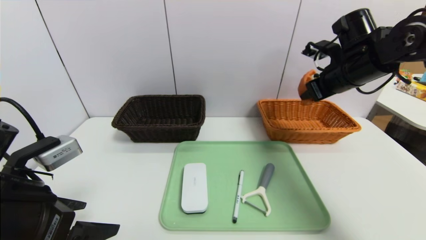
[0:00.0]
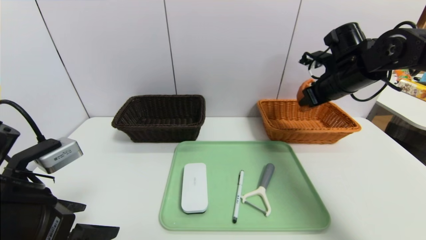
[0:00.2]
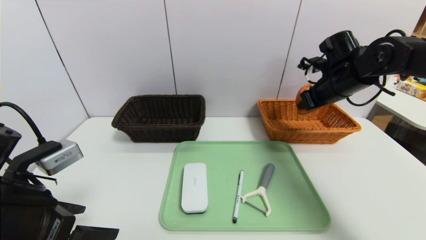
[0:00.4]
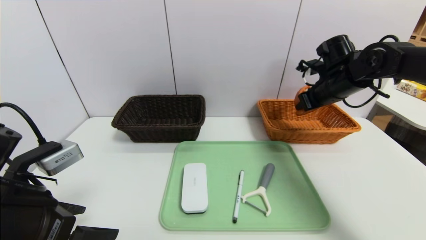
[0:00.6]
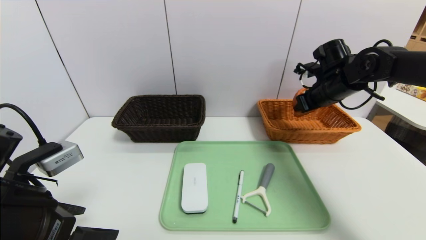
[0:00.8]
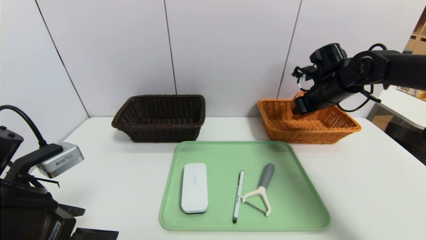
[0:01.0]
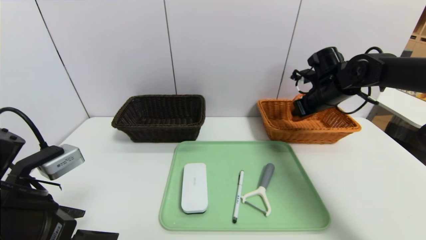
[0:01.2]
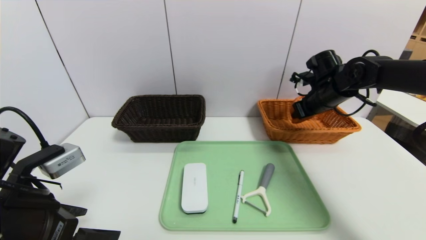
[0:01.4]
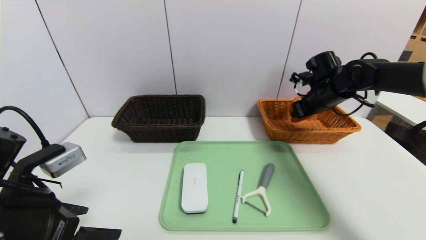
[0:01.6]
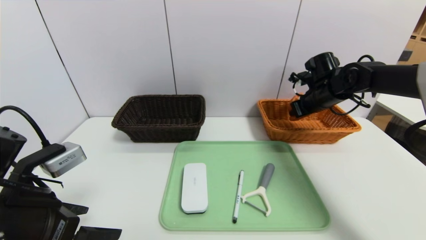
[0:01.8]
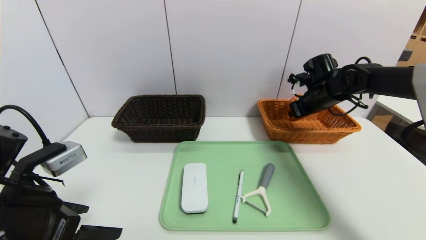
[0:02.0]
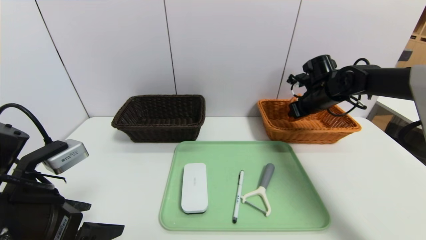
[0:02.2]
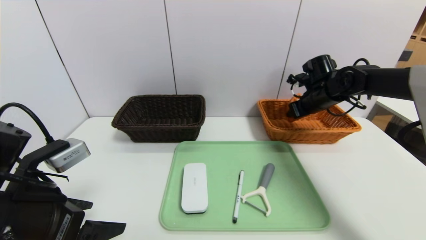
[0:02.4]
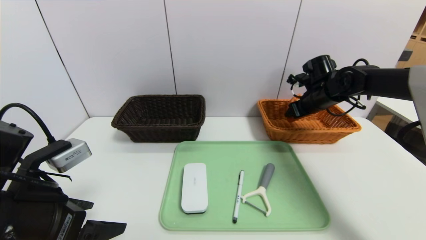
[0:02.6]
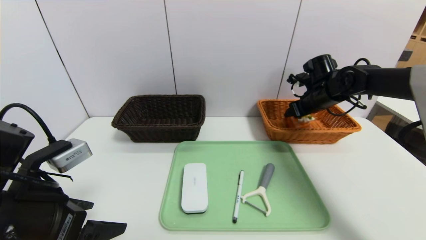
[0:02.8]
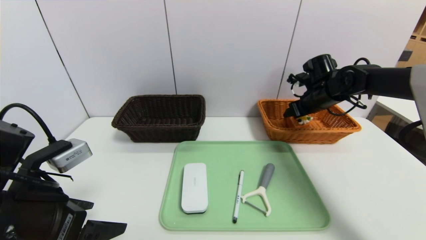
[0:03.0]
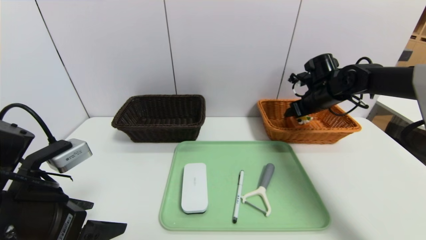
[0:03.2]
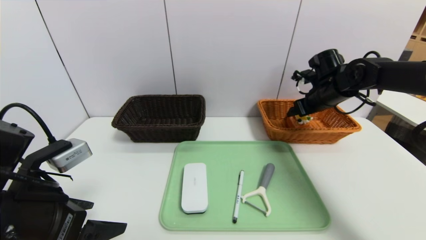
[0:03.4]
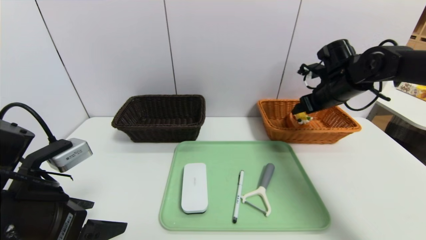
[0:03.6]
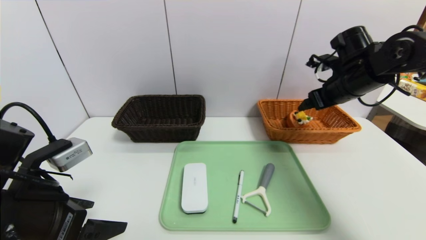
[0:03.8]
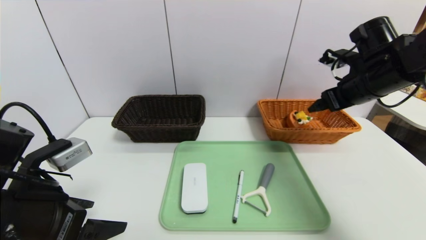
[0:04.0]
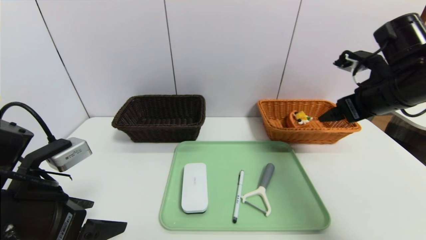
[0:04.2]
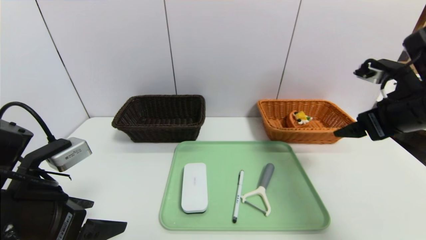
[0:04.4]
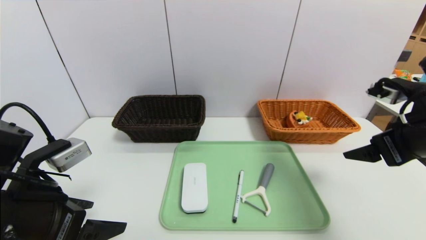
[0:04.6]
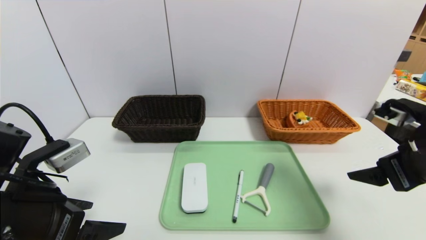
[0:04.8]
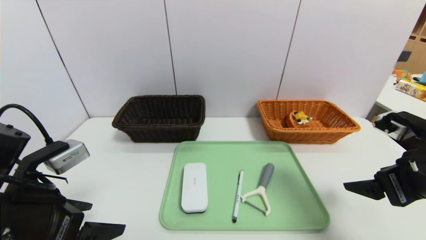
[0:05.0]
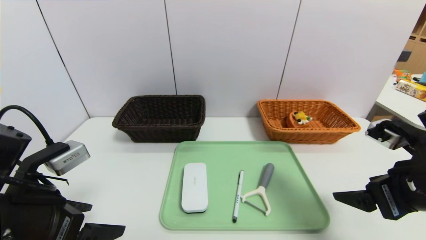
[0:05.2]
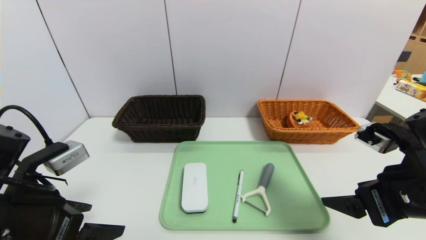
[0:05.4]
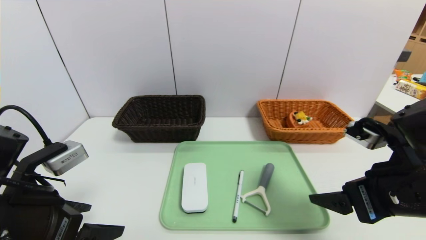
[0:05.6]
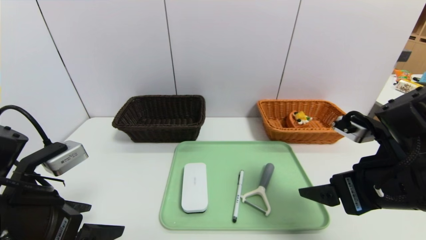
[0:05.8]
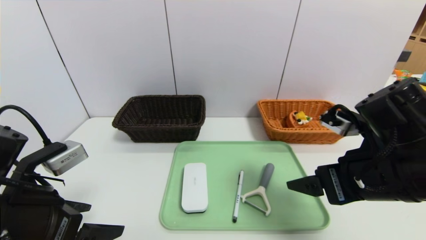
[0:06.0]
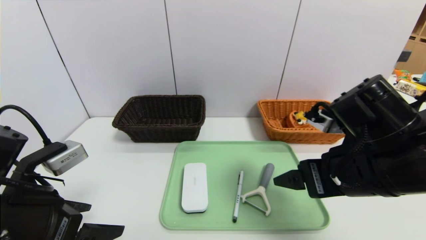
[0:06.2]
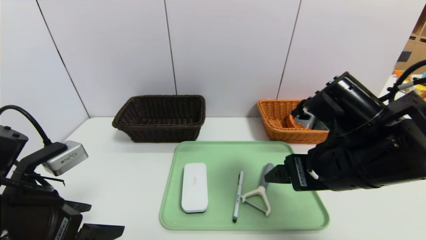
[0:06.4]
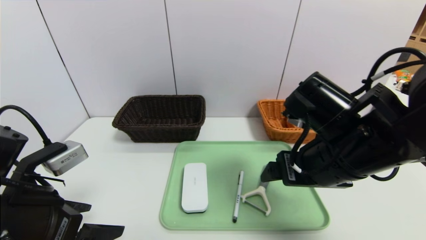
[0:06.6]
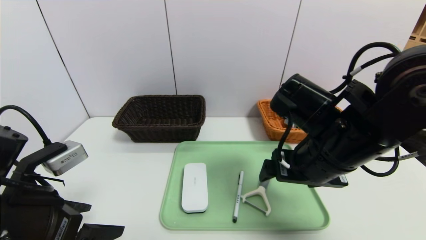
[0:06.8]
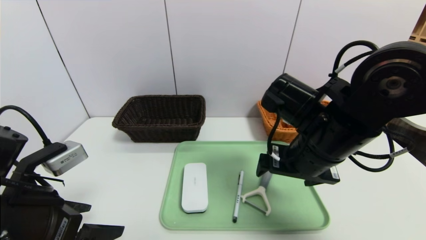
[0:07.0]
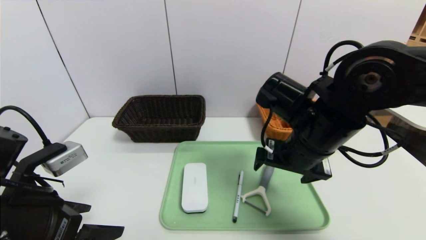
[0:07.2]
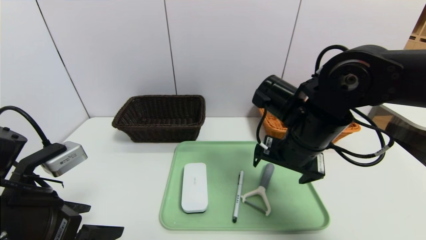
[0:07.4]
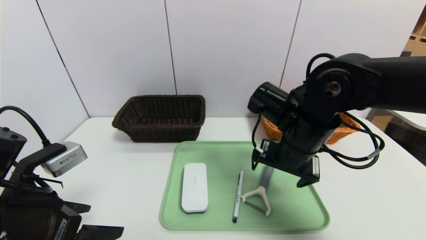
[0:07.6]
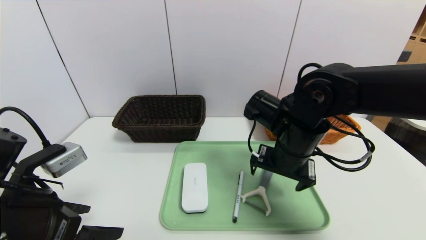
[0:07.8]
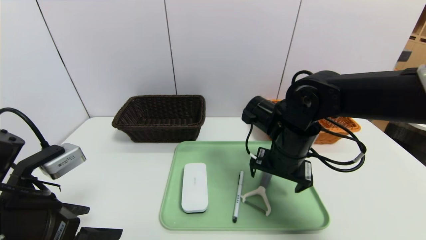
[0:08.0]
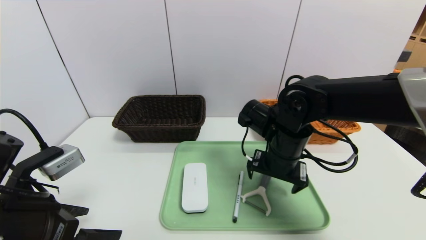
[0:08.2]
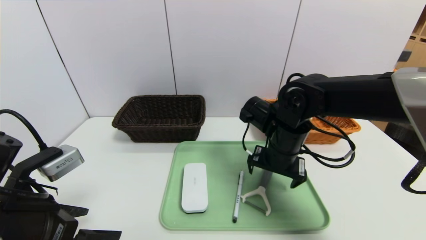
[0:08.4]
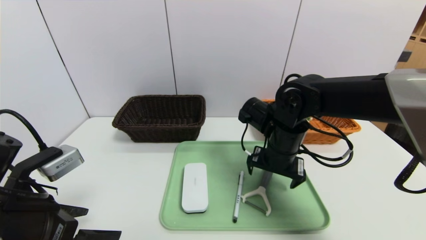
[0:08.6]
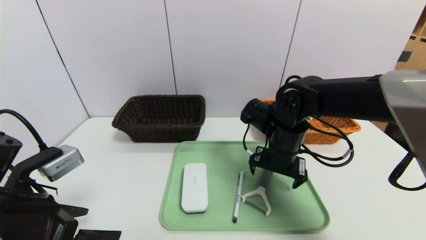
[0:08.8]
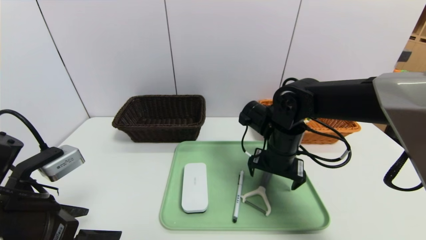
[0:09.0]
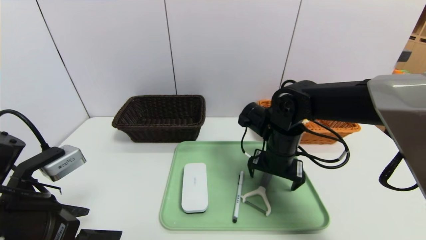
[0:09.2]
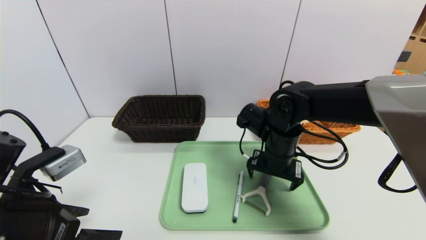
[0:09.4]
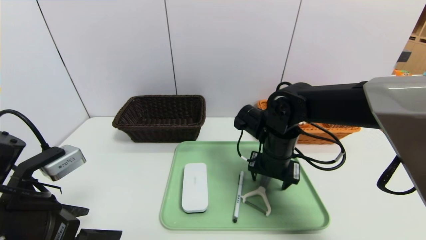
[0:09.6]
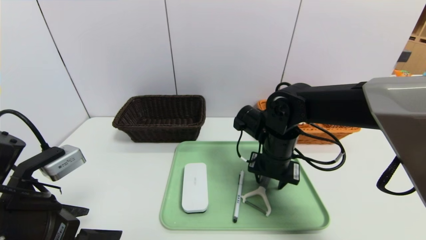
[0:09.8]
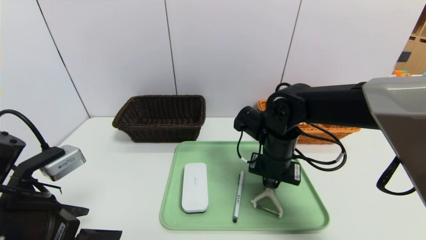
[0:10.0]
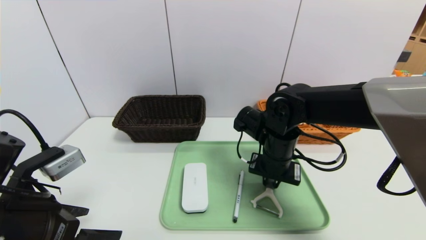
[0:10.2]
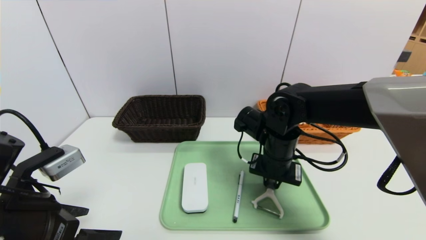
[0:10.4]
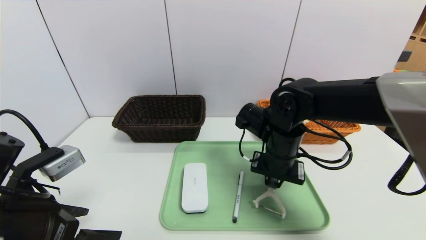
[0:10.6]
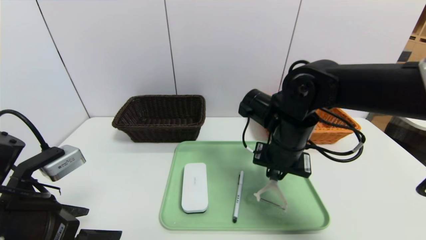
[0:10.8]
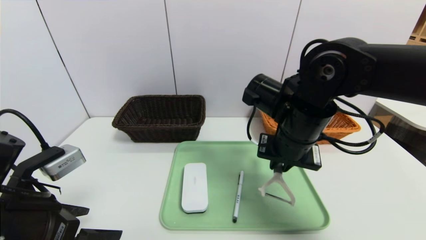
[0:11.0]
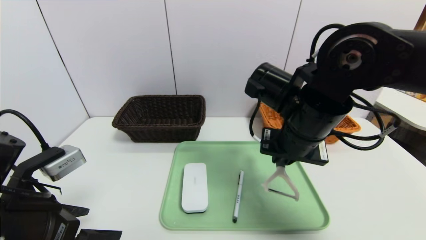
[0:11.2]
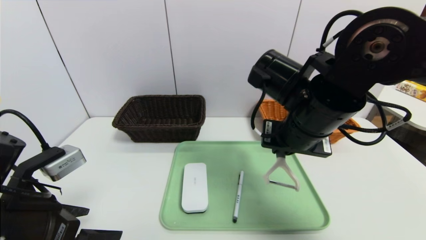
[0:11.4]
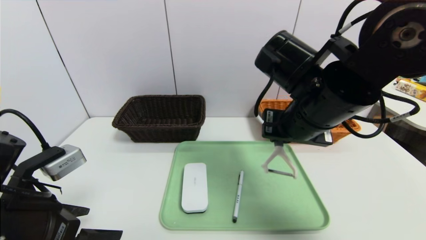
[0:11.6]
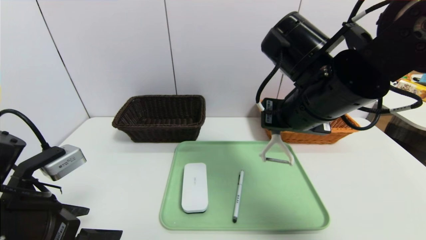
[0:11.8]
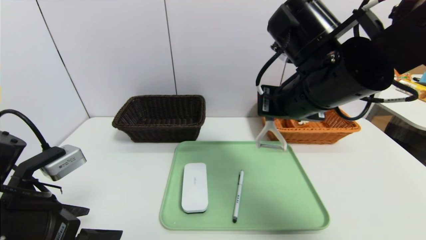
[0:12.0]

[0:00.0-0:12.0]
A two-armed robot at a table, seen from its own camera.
Task of the whole recording: place the food in the right basket with the right gripper, and place the non food items in the left basket with the left gripper.
Step, 0:00.0 to 0:03.6: Grasp the triangle cake and put it in the right basket.
0:00.0 to 0:01.6: The right gripper moves downward and forward, some 10 cm.
0:01.6 to 0:03.0: The right gripper opens its fingers.
0:03.0 to 0:04.4: The right gripper shifts roughly 20 cm backward.
0:04.4 to 0:06.0: The right gripper heads to the left, backward and downward, covering approximately 10 cm.
0:06.0 to 0:07.6: The right gripper goes approximately 10 cm forward and to the left.
0:07.6 to 0:09.0: The right gripper shifts about 5 cm downward.
0:09.0 to 0:10.4: The right gripper closes.
0:10.4 to 0:12.0: The right gripper is displaced upward by some 15 cm.

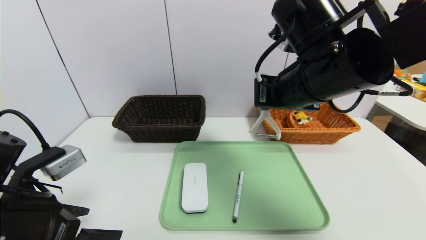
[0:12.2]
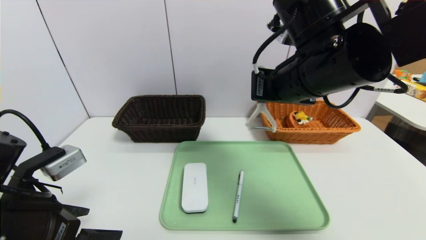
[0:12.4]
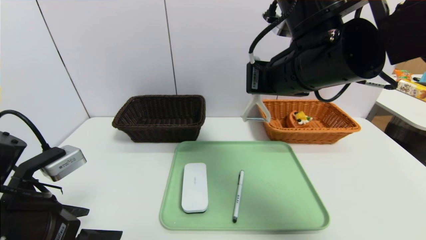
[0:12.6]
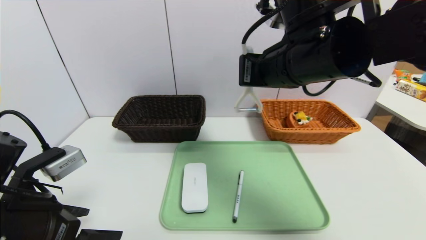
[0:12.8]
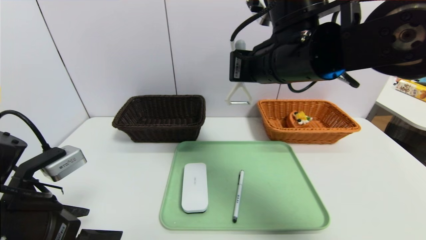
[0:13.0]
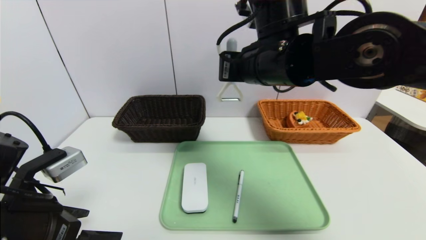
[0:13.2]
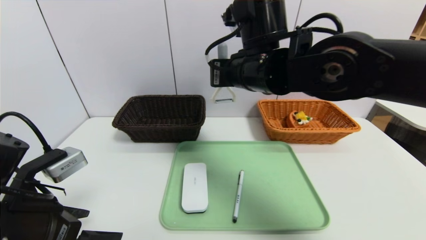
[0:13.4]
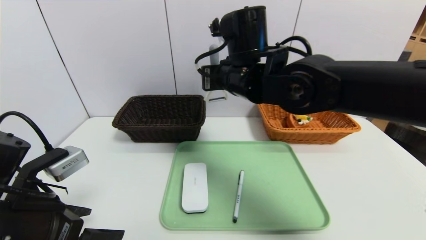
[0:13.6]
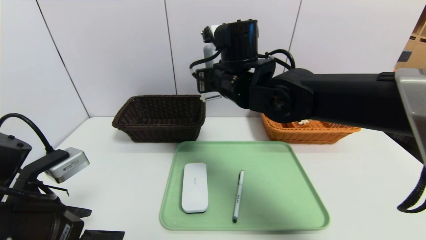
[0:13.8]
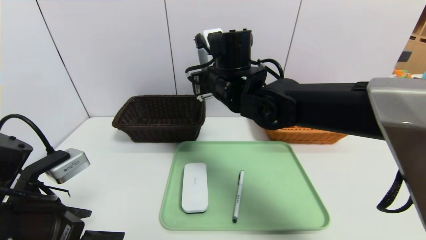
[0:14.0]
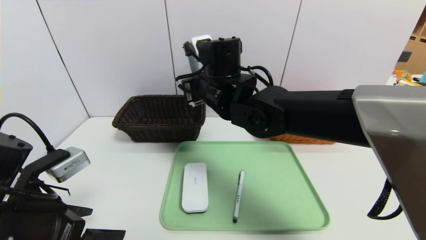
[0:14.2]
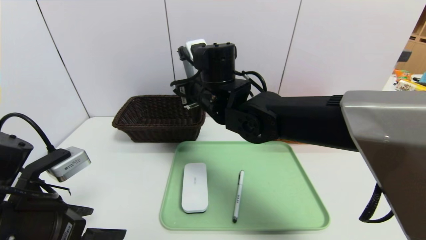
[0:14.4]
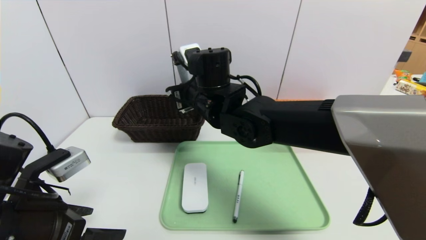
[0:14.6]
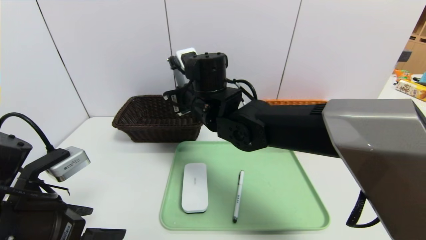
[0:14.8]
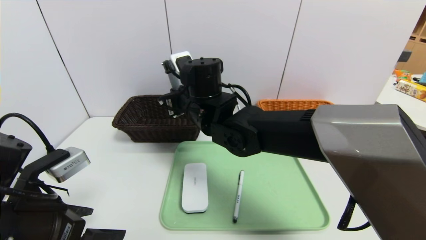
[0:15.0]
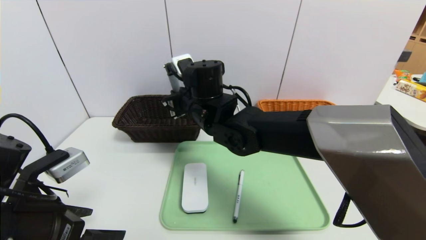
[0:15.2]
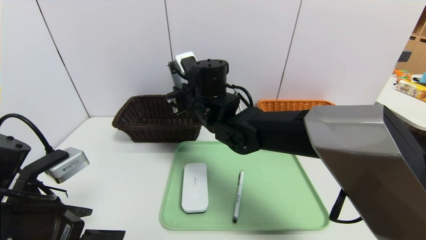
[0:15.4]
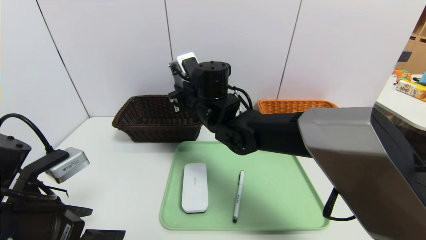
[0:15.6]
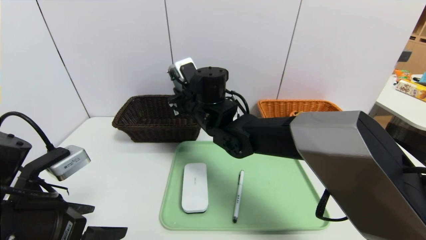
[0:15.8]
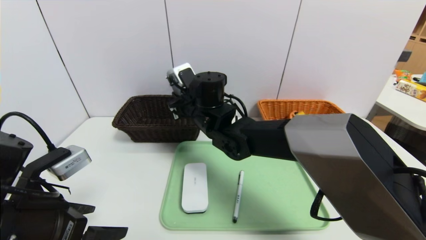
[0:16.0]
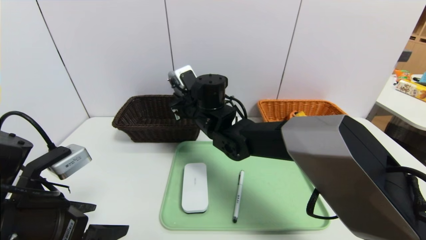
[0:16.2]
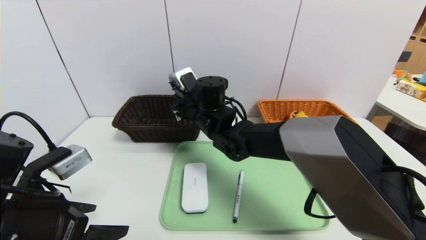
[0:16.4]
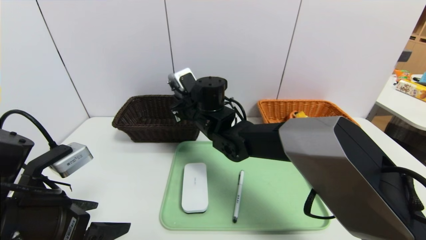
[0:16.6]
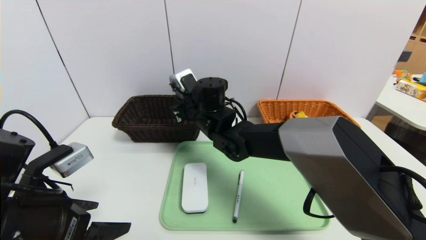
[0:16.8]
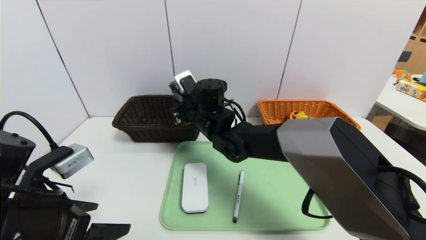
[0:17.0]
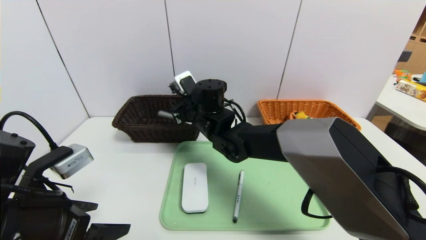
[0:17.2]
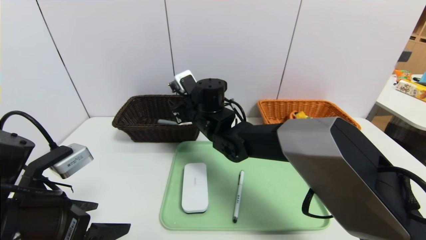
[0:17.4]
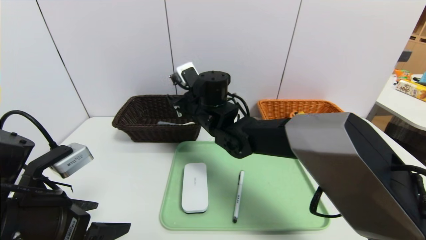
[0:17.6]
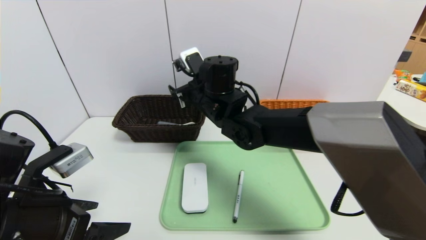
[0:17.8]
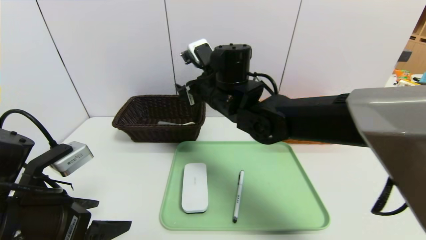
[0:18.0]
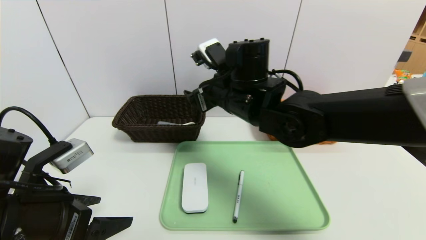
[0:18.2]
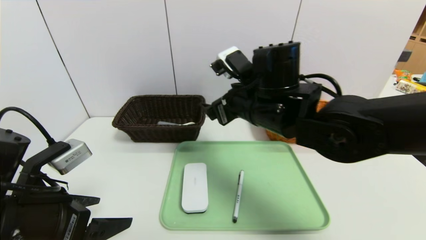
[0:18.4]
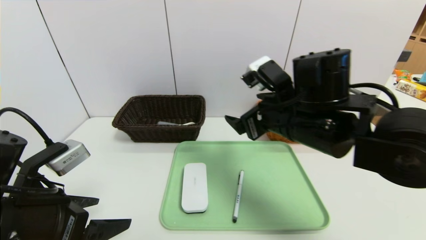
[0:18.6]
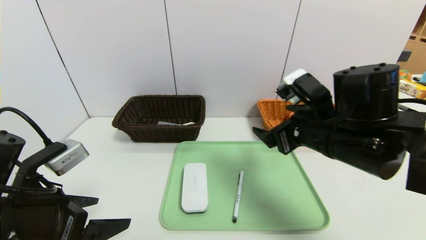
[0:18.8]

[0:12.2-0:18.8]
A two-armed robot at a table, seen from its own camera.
Task of the whole recording: place the food in the right basket with the right gripper, and place the non food items in the left basket with the left gripper.
0:12.2 to 0:13.8: The right gripper is displaced to the left and forward by about 15 cm.
0:13.8 to 0:15.4: The right gripper shifts about 10 cm to the left and downward.
0:15.4 to 0:17.2: The right gripper ends up roughly 5 cm from where it was, and opens.
0:17.2 to 0:18.8: The right gripper travels to the right and backward by some 25 cm, and opens up.
